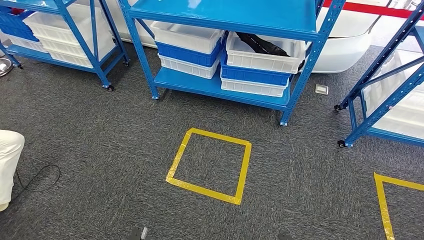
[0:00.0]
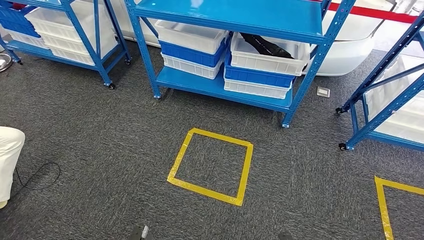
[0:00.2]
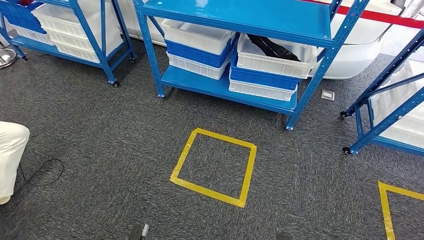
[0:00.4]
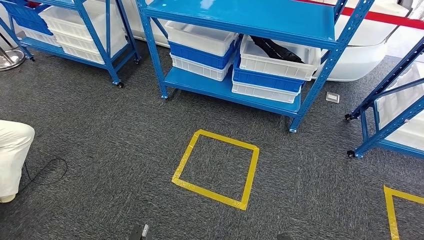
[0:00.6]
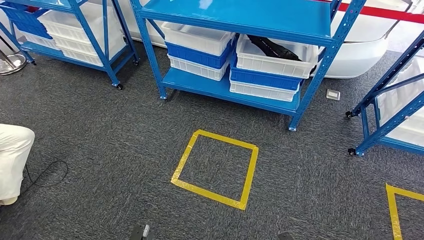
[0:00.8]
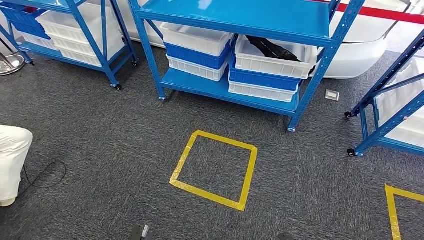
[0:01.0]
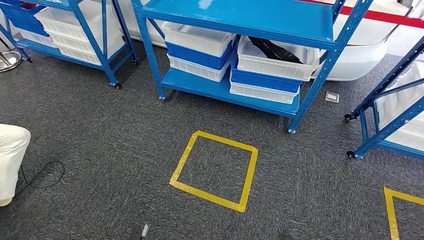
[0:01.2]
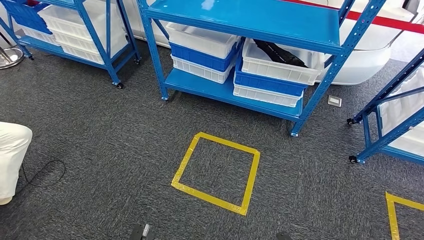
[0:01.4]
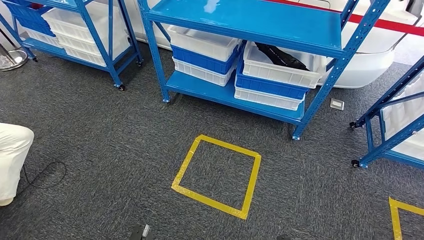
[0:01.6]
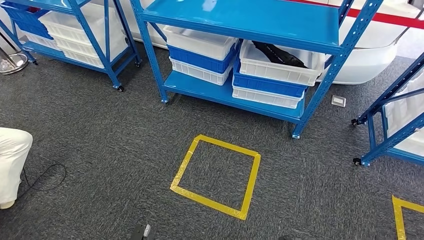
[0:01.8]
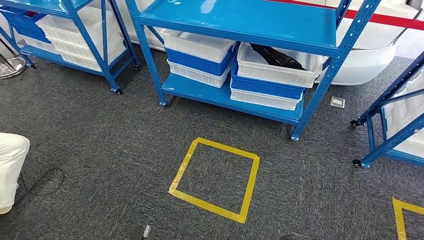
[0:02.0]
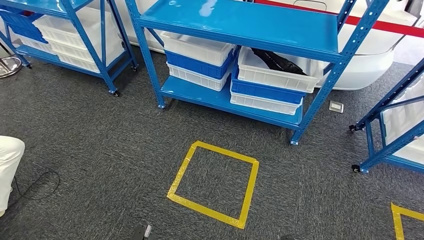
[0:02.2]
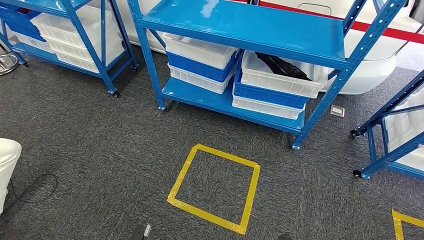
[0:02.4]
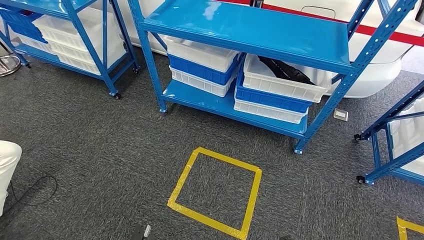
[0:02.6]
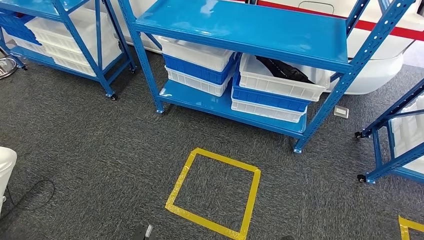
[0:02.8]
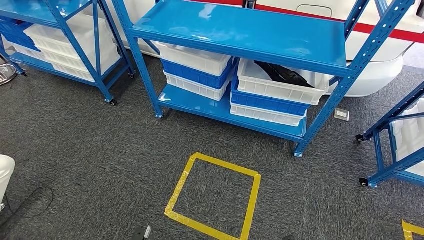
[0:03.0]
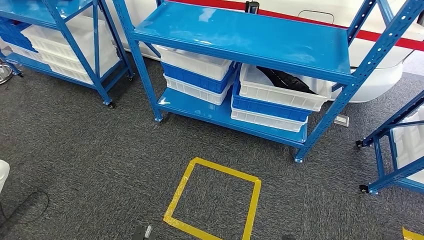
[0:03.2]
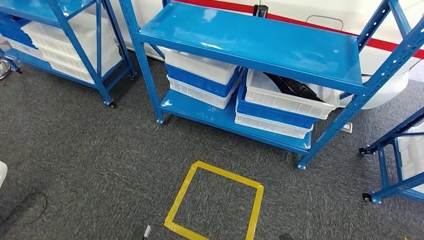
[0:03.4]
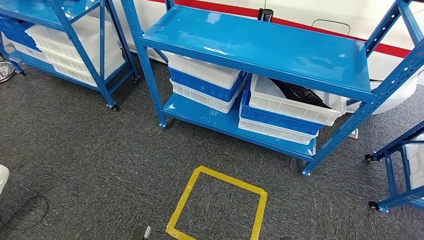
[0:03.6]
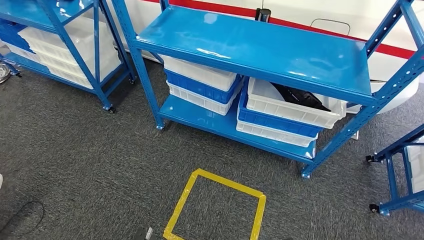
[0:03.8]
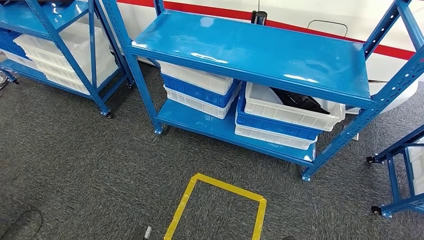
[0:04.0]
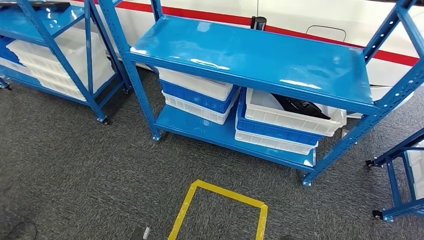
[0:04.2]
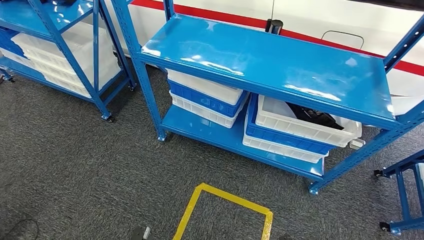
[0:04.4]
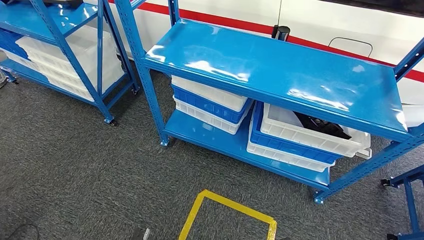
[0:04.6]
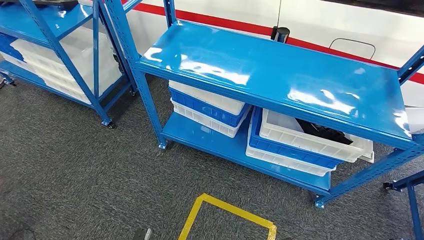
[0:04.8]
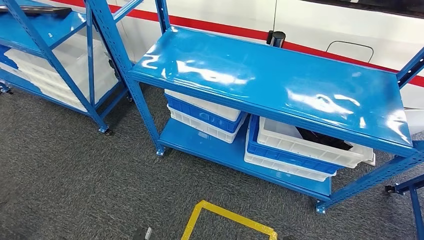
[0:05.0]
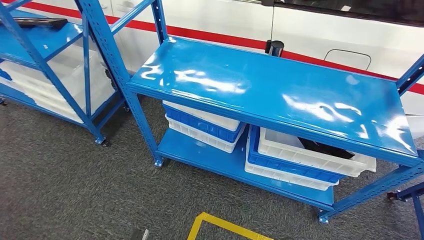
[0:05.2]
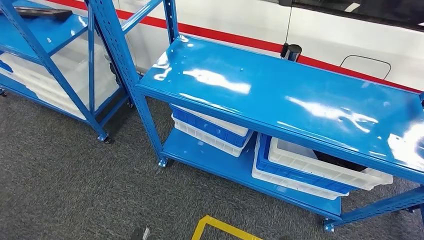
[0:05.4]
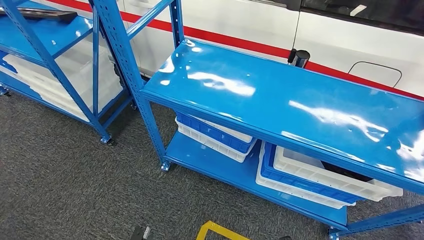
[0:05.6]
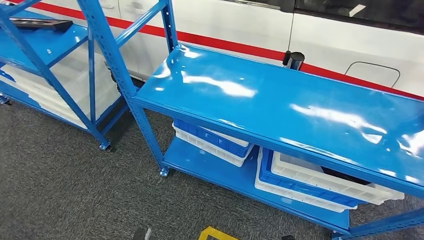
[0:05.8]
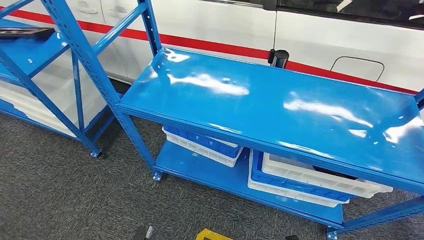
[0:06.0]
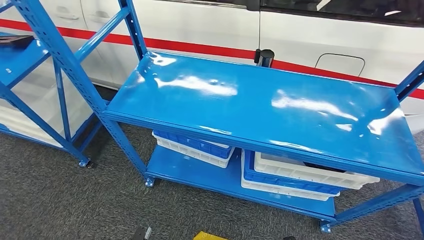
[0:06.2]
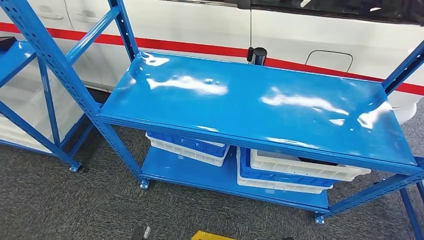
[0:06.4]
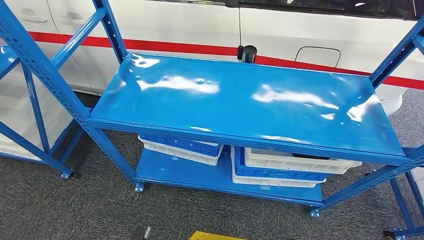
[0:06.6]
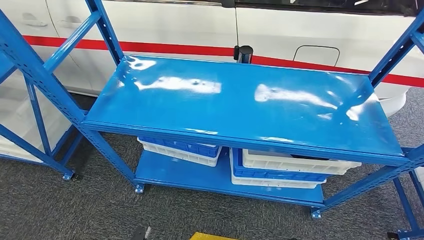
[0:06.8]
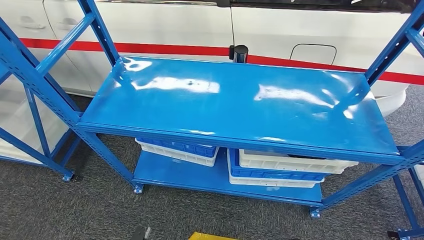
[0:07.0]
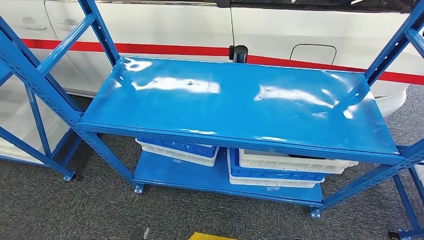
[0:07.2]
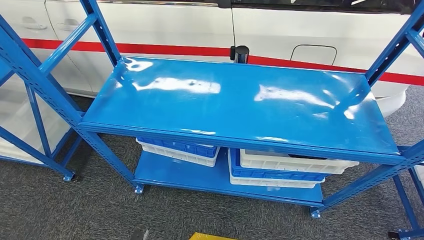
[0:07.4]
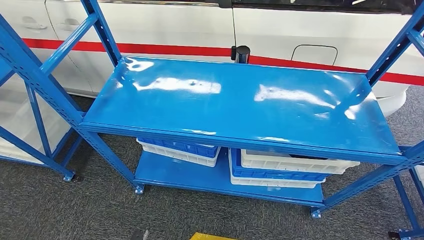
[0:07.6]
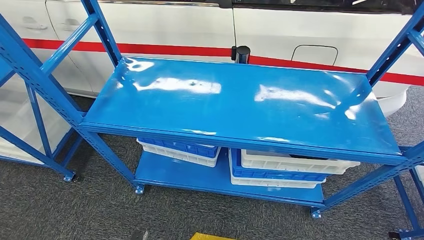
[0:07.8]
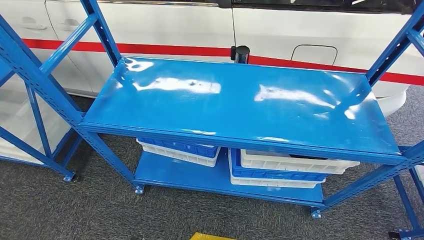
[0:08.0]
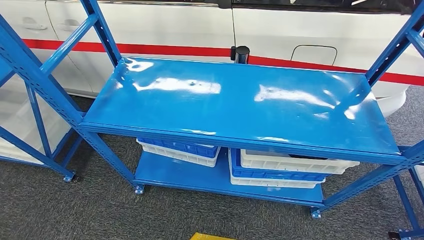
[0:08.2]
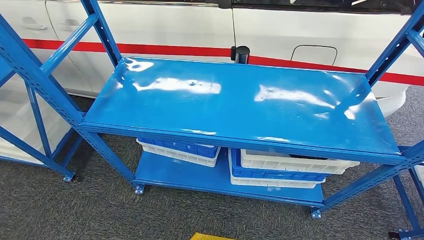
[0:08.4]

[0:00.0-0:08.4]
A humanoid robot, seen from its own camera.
Step, 0:00.0 to 0:08.4: Move to the initial position of the shelf.
0:07.0 to 0:08.4: The left hand moves about 5 cm. The right hand shifts some 5 cm backward.

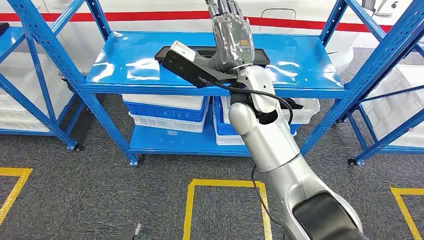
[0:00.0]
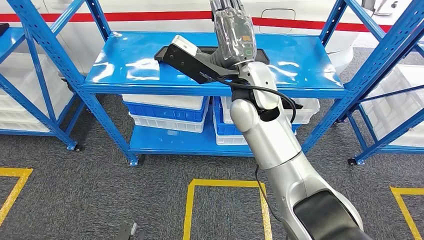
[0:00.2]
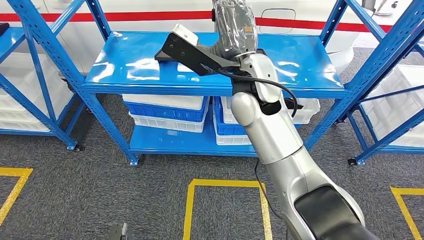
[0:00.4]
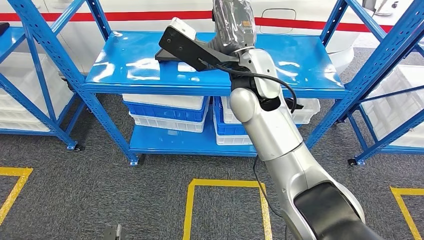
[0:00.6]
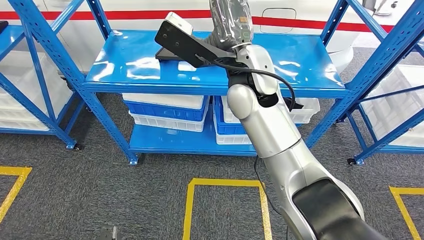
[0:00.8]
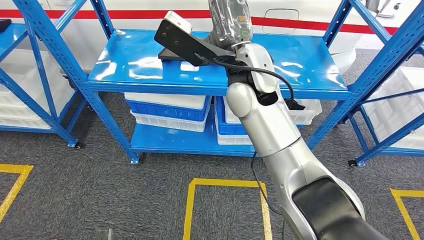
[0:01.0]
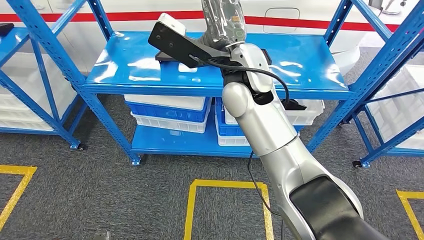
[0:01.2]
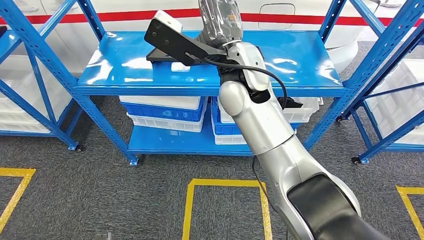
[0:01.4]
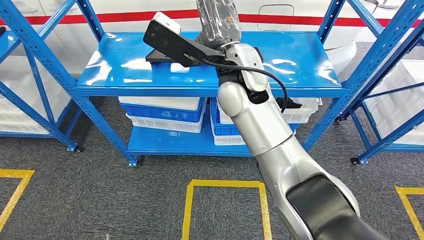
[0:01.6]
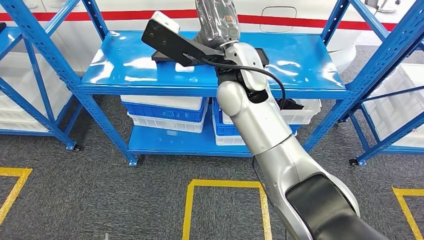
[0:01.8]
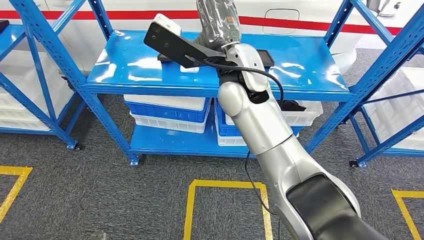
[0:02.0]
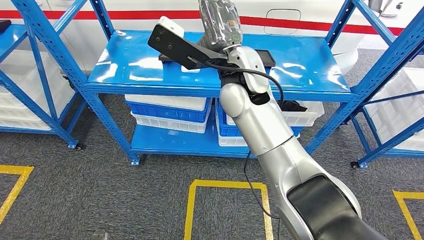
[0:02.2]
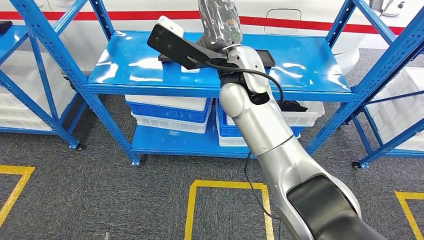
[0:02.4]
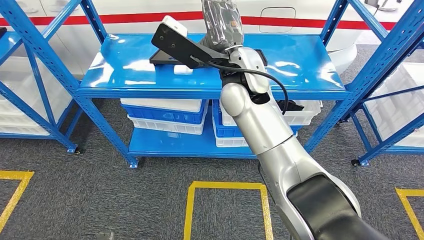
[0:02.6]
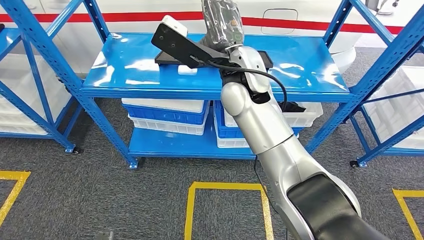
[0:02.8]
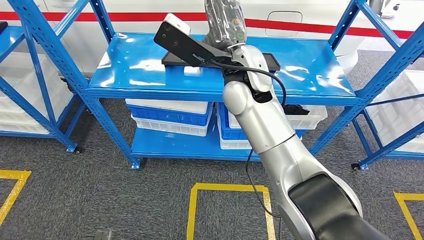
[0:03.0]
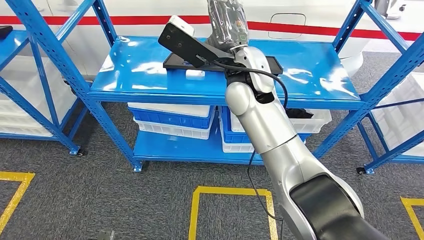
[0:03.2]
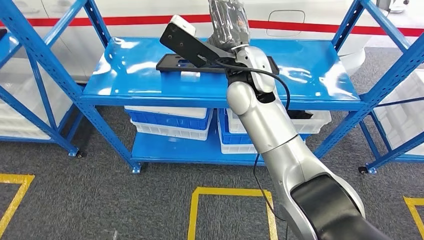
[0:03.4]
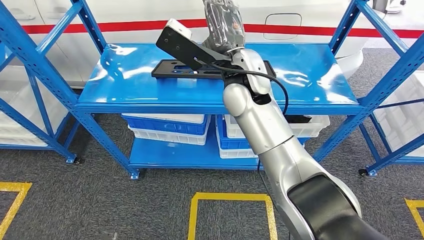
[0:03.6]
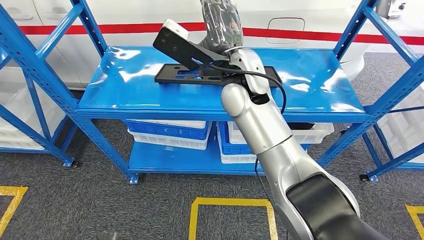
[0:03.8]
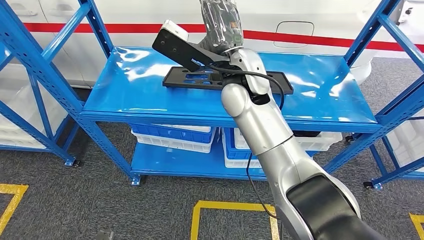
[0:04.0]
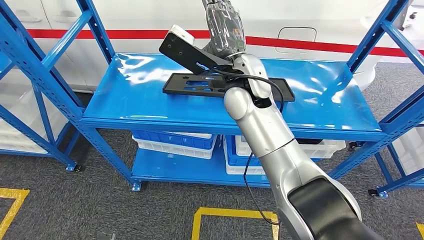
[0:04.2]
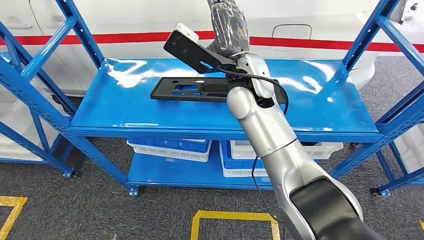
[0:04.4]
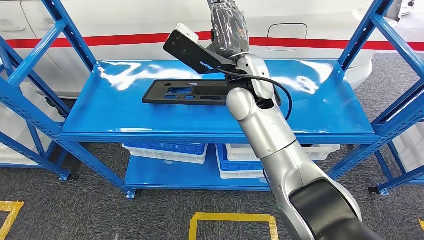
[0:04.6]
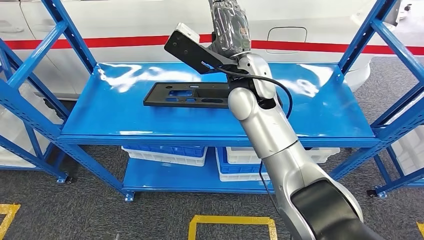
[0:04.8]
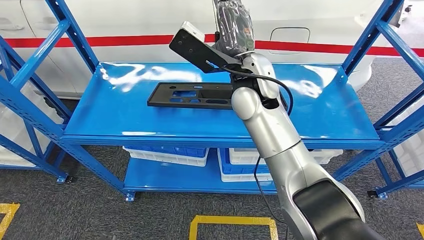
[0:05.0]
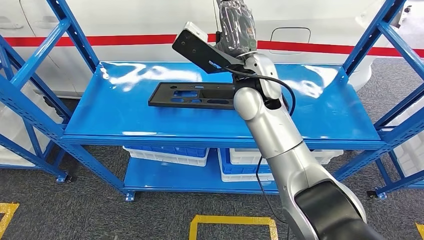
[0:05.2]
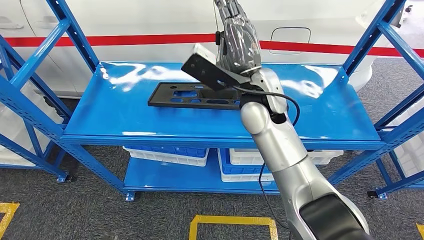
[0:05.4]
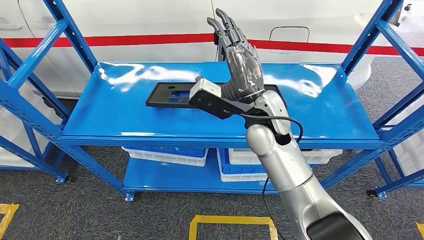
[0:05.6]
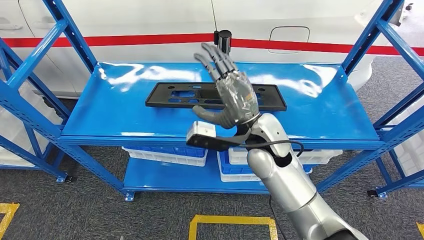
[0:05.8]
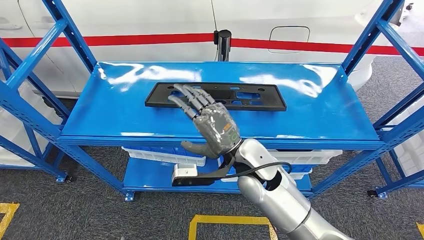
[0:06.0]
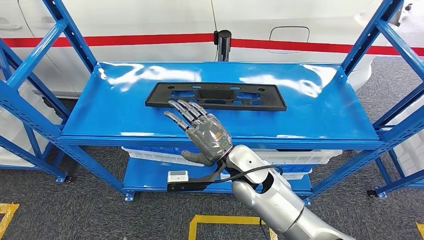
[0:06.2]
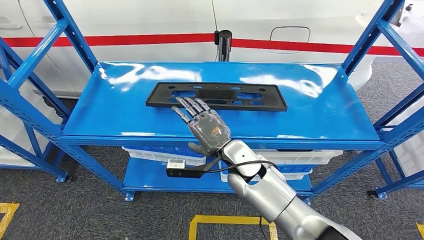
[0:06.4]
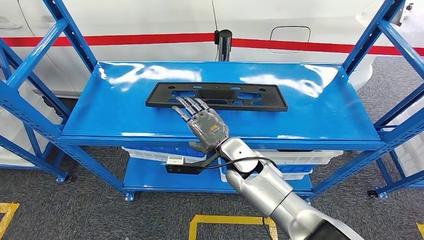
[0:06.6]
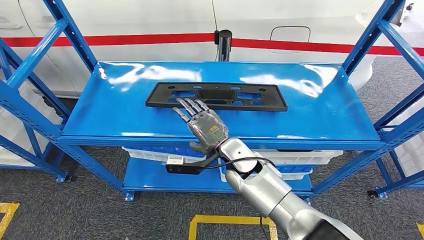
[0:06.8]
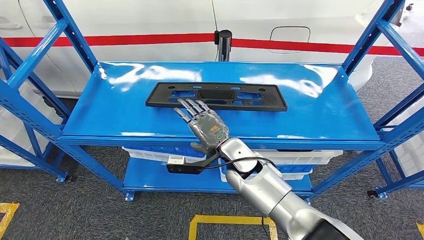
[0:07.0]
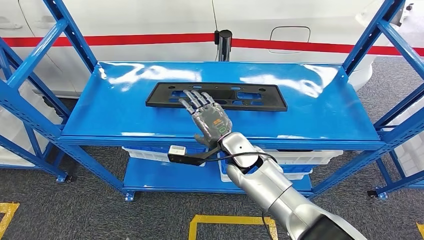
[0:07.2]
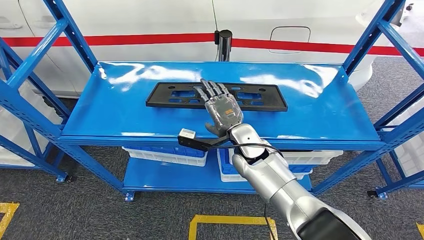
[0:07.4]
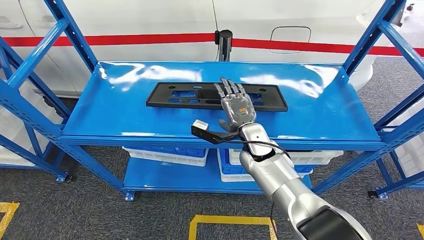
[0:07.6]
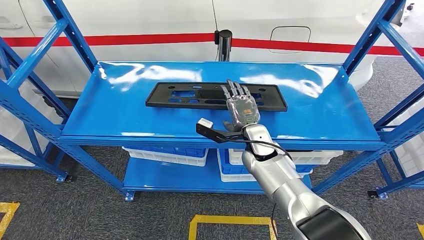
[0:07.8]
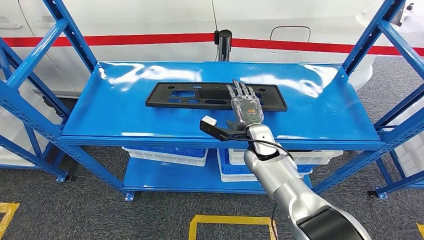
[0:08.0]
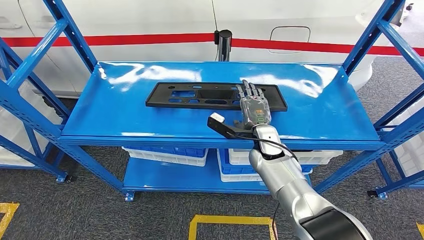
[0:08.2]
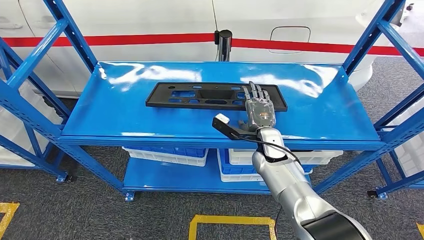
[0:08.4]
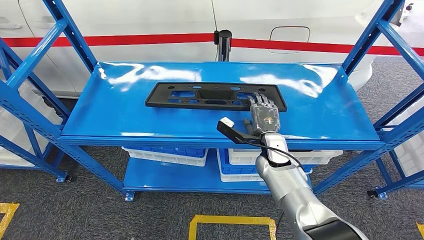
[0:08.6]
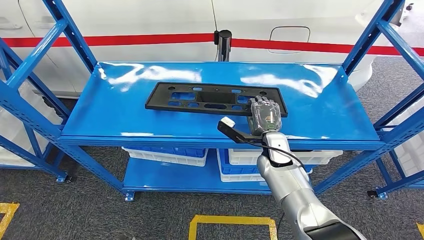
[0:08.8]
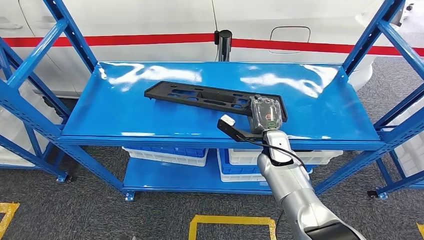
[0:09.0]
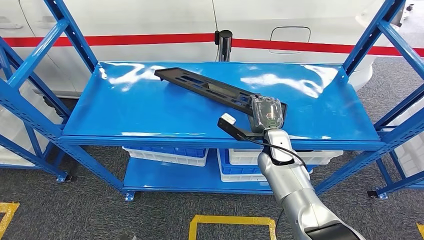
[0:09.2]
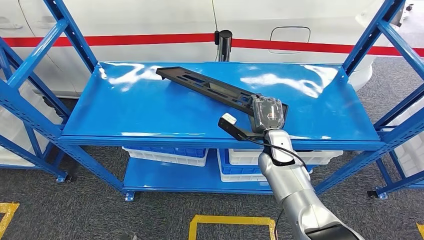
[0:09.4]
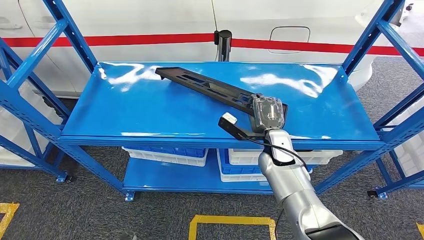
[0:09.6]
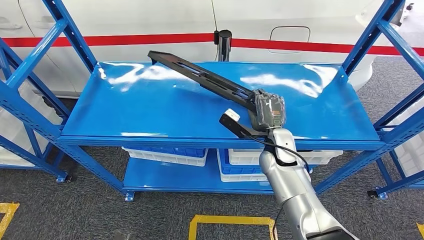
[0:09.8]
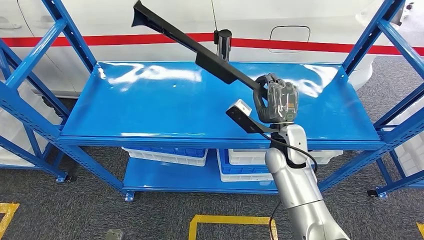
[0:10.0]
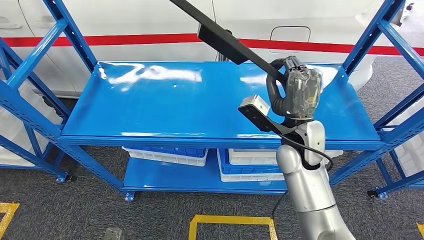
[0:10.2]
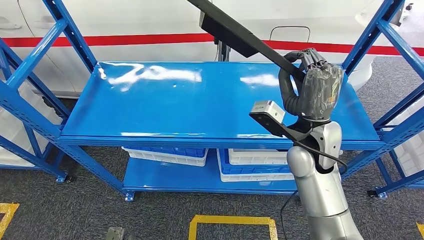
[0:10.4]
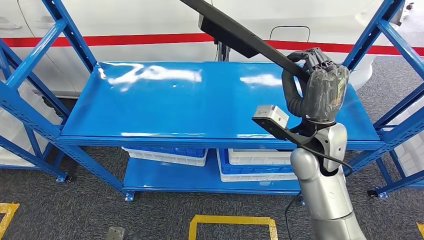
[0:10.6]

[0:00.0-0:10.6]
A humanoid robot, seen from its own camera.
0:06.0 to 0:07.6: The right hand goes roughly 10 cm forward and downward.
0:07.6 to 0:09.0: The right hand goes approximately 5 cm to the right.
0:09.0 to 0:10.6: The right hand travels upward and backward by approximately 15 cm.
